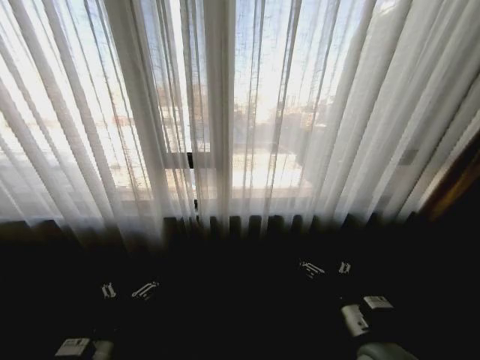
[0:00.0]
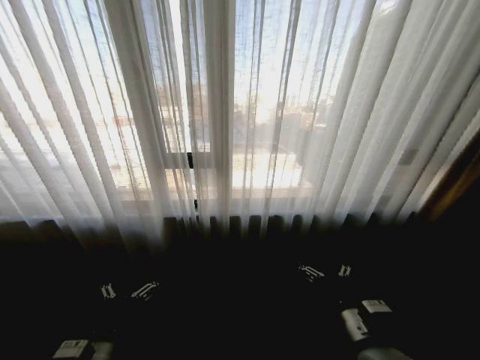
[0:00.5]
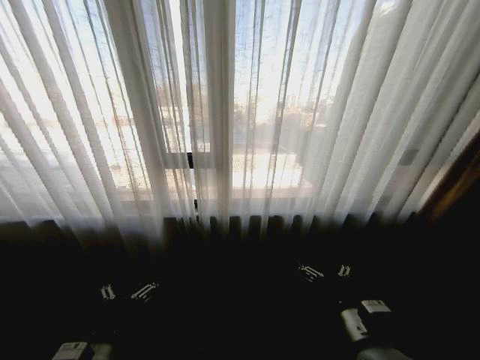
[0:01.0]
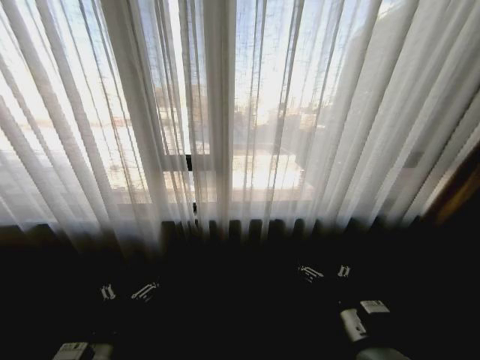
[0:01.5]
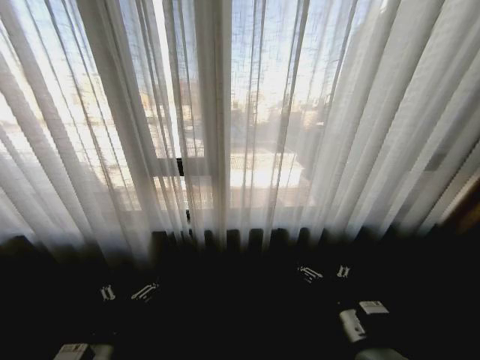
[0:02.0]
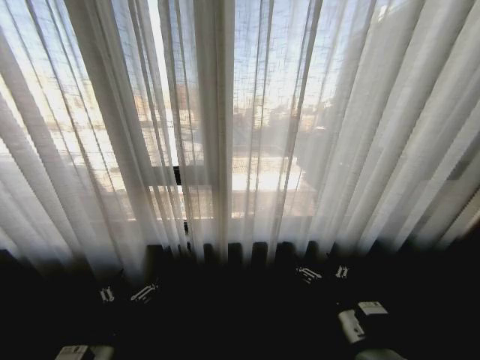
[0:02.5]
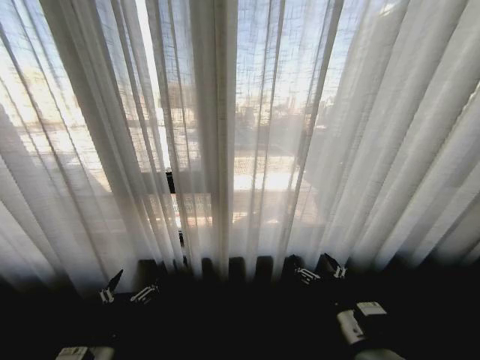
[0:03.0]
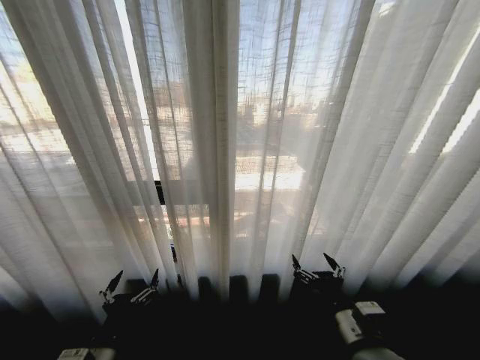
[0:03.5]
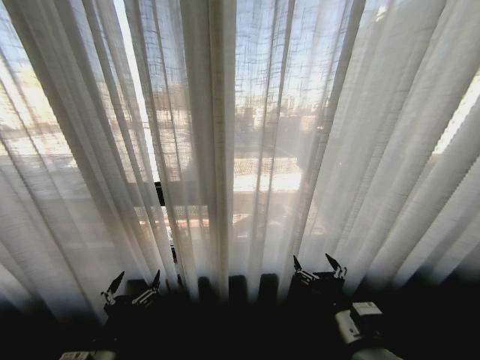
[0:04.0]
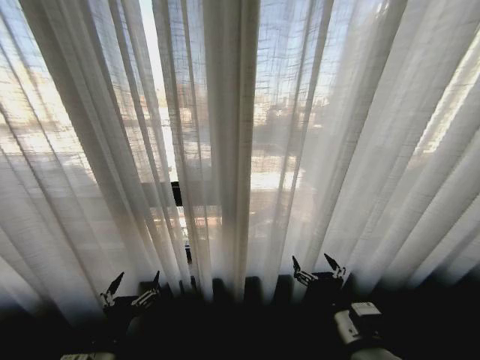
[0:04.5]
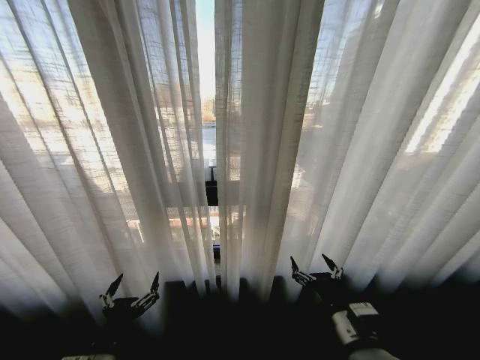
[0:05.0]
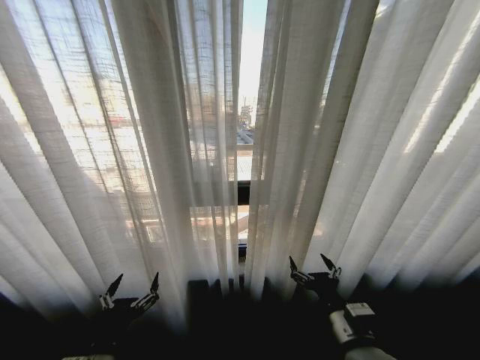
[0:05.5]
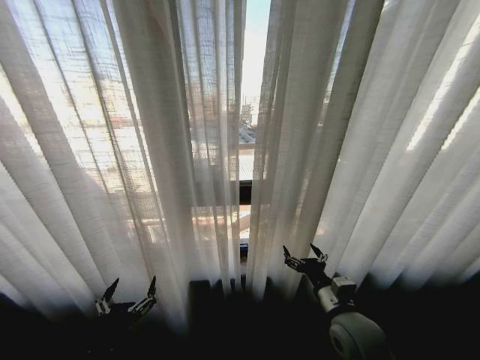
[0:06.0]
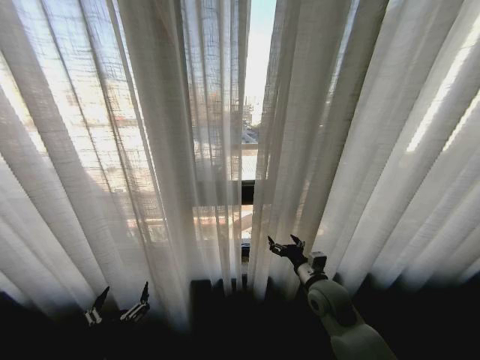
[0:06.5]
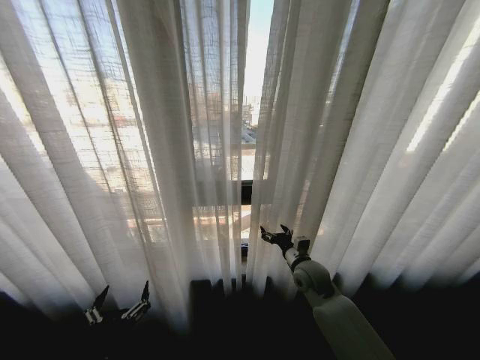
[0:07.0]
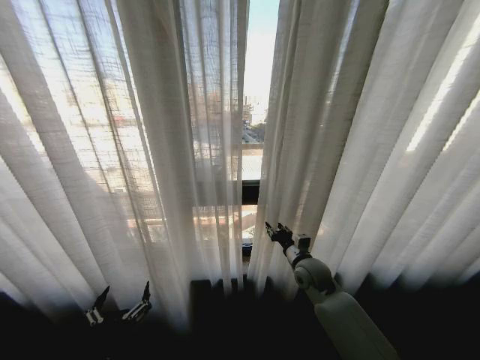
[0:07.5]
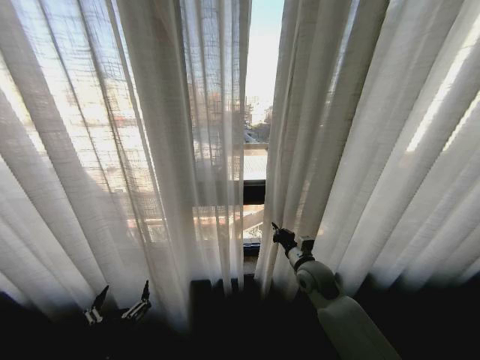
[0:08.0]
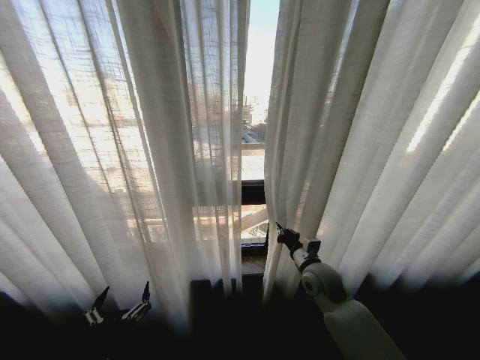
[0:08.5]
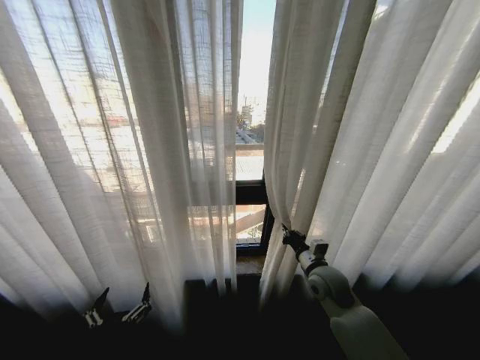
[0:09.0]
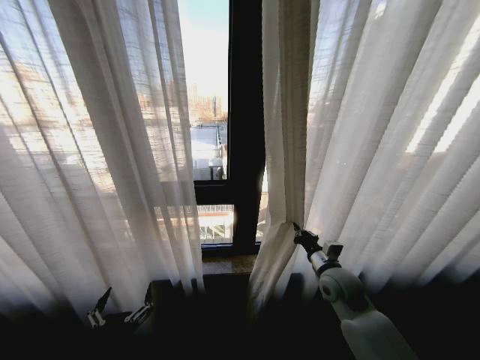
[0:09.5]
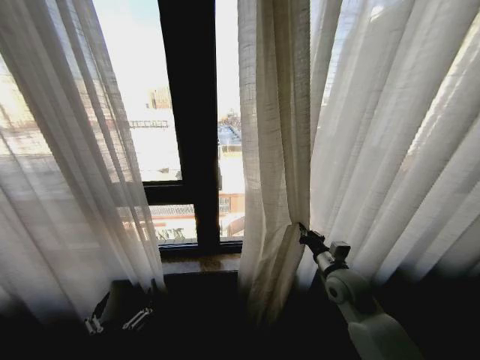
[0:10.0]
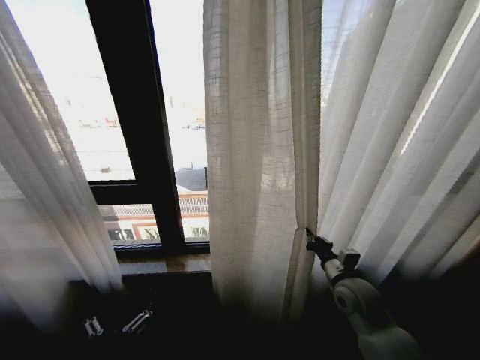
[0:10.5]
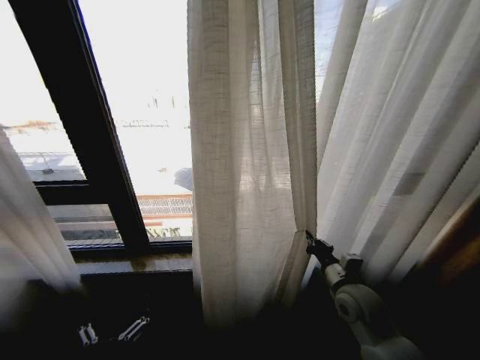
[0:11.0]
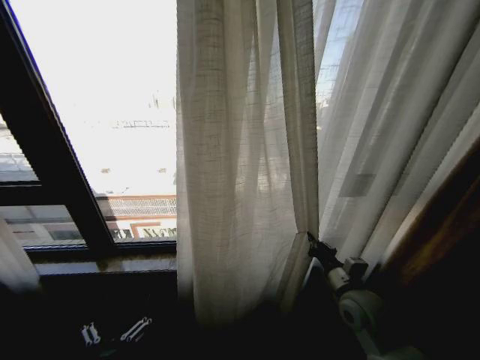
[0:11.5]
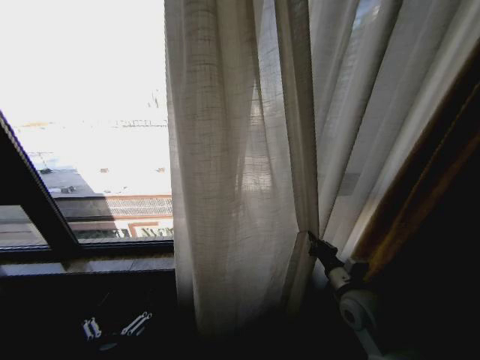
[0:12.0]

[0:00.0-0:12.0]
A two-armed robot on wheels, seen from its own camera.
Task of the whole recording: Open the curtains by pulling them apart, changing their state from closed to fully open.
0:04.0 to 0:06.0: The right gripper heads forward, covering about 5 cm.
0:06.0 to 0:08.0: The right gripper moves forward, roughly 15 cm, and closes.
0:08.0 to 0:10.0: The right gripper heads to the right, covering some 5 cm.
0:10.0 to 0:12.0: The right gripper heads backward, covering approximately 5 cm.

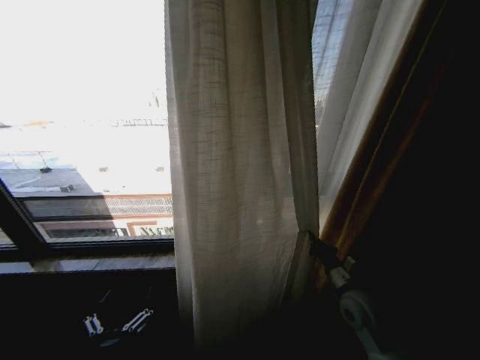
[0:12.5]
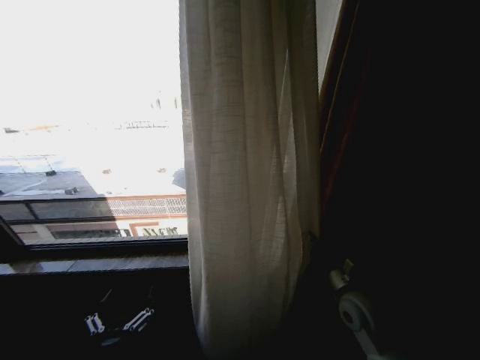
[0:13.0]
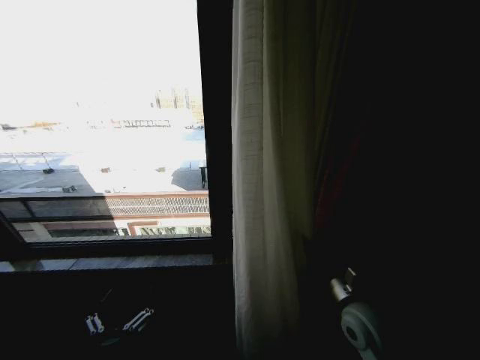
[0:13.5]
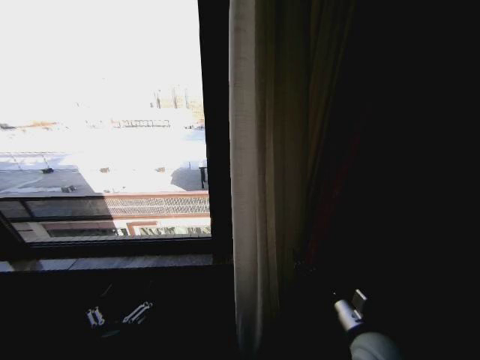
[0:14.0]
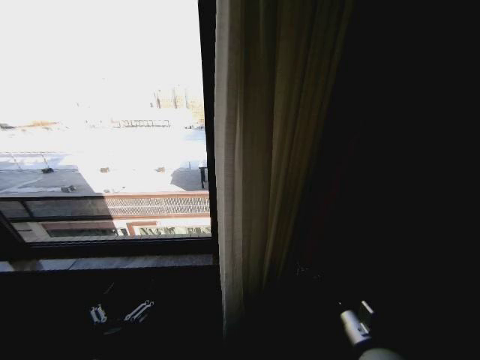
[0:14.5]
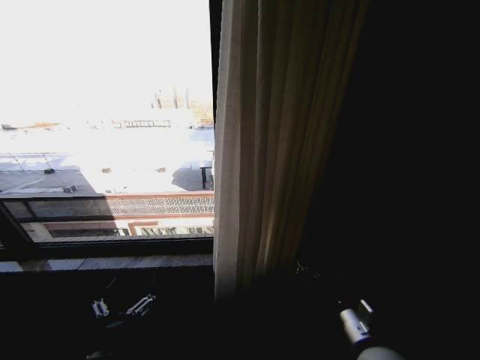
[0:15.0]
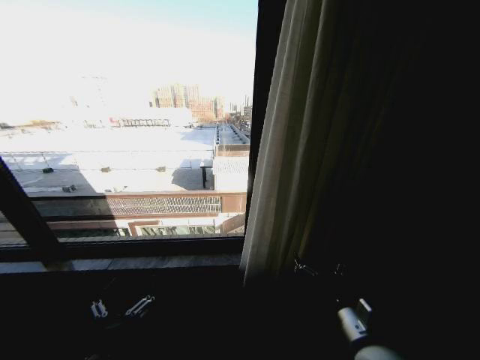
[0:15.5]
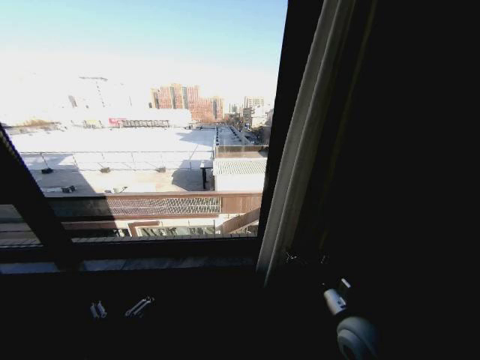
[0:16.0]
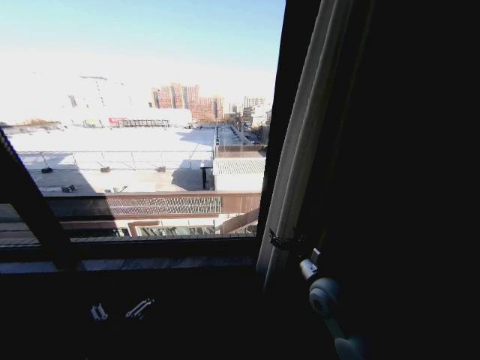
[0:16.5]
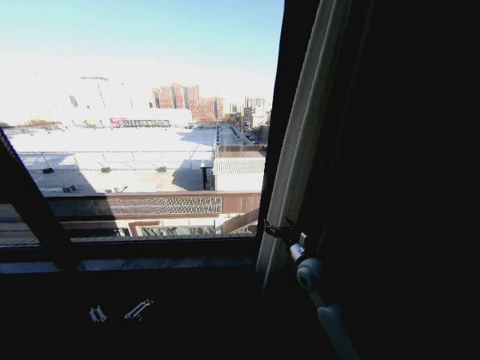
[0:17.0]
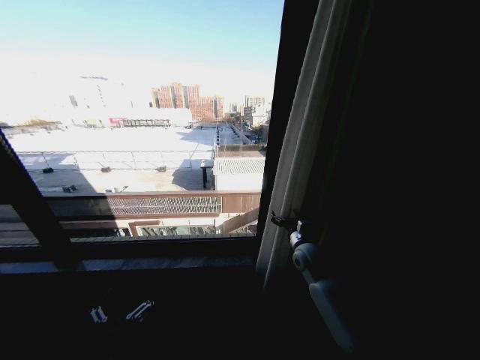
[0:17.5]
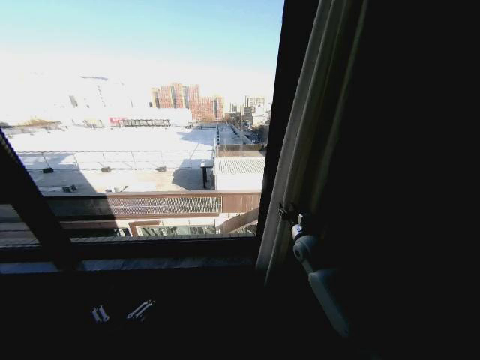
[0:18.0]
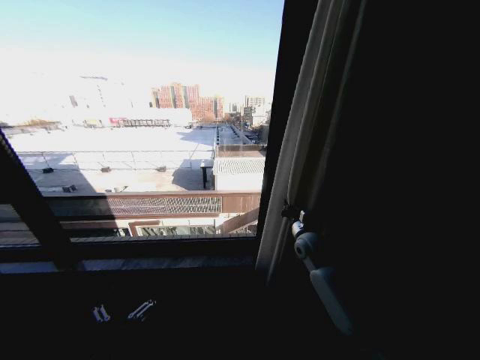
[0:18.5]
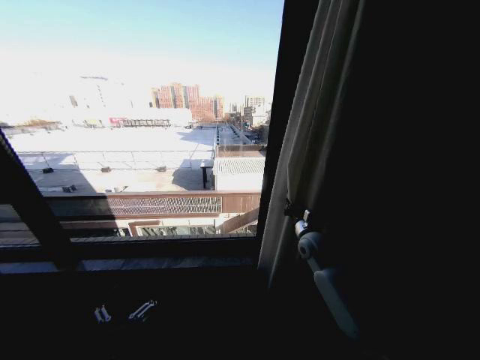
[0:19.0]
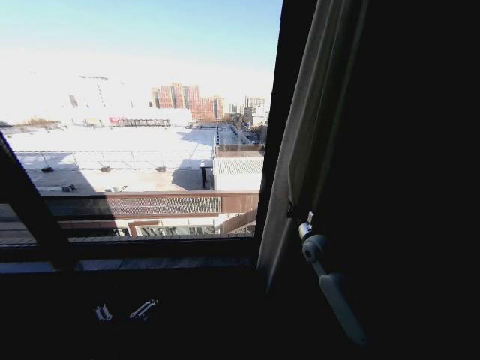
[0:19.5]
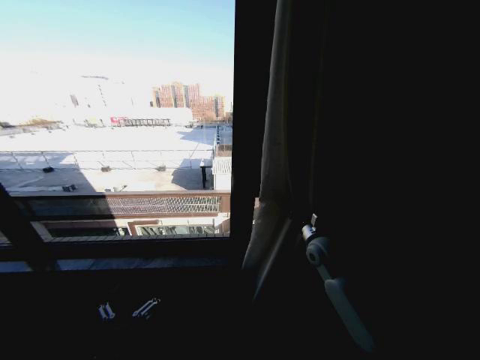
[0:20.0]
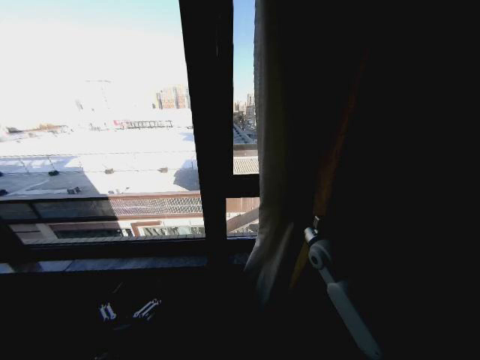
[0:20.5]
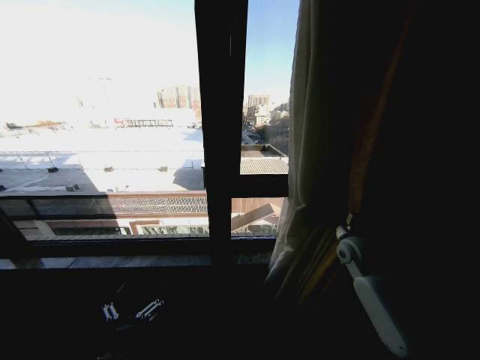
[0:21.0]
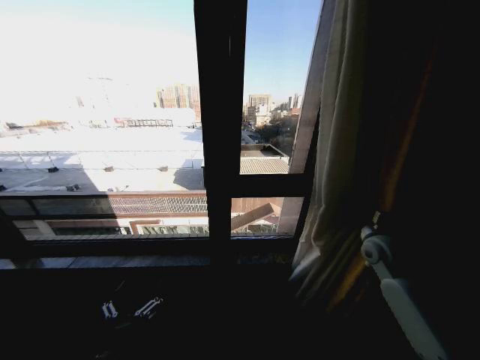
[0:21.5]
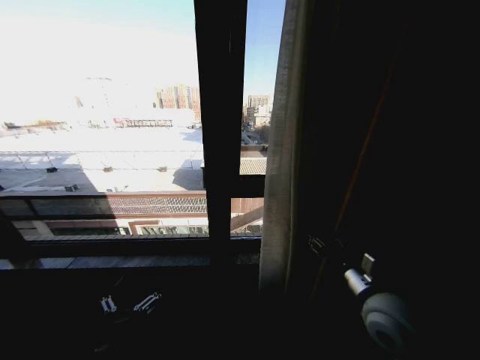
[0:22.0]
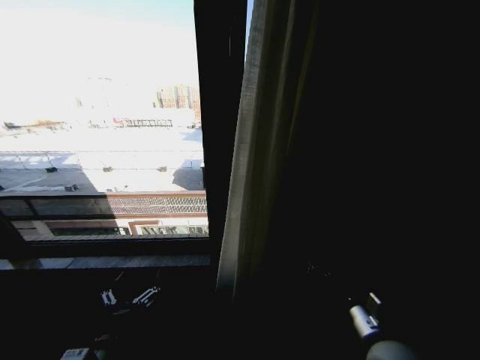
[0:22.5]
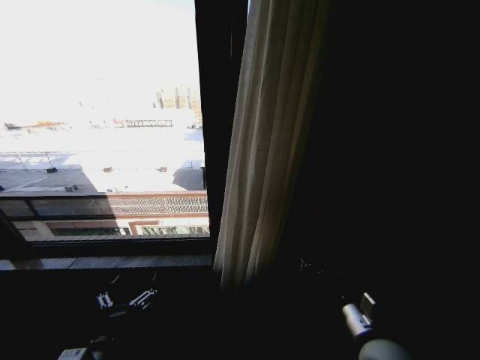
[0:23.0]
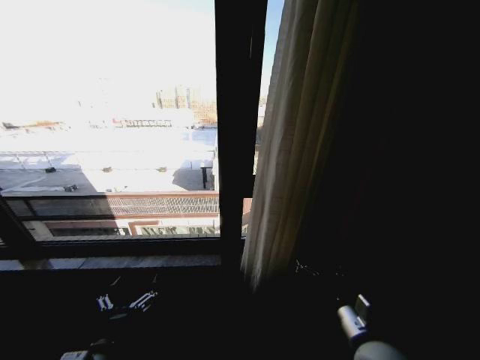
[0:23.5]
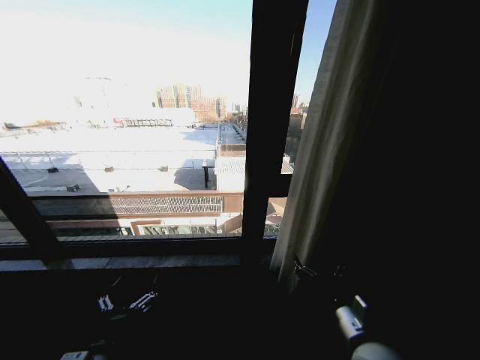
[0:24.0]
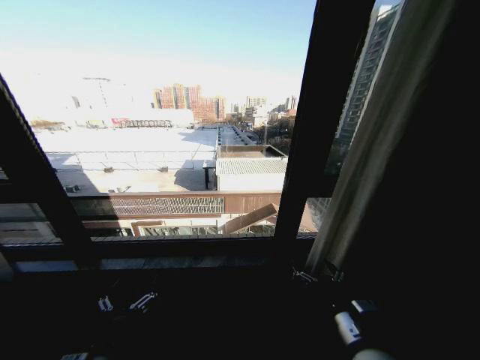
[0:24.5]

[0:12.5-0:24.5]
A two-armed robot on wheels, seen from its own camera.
Task of the whole recording: Open the curtains by pulling them apart, changing their state from closed to fully open.
0:12.5 to 0:14.5: The right gripper heads backward and to the left, covering approximately 15 cm, and opens.
0:14.5 to 0:16.5: The right gripper moves forward, roughly 15 cm.
0:16.5 to 0:18.5: The right gripper moves forward, approximately 15 cm, and closes.
0:18.5 to 0:20.5: The right gripper moves roughly 5 cm.
0:20.5 to 0:22.5: The right gripper shifts about 25 cm backward, and opens.

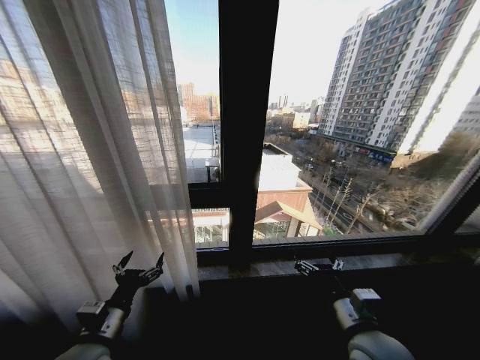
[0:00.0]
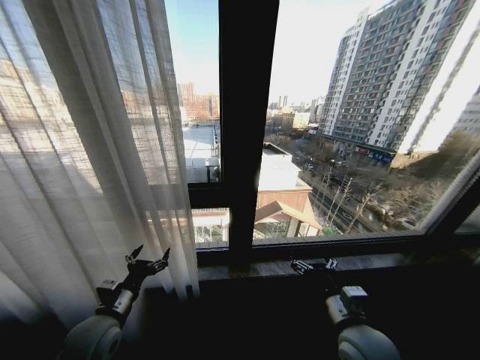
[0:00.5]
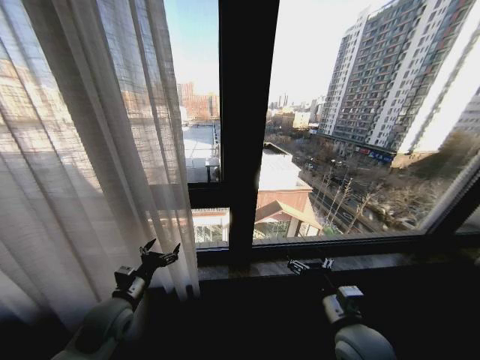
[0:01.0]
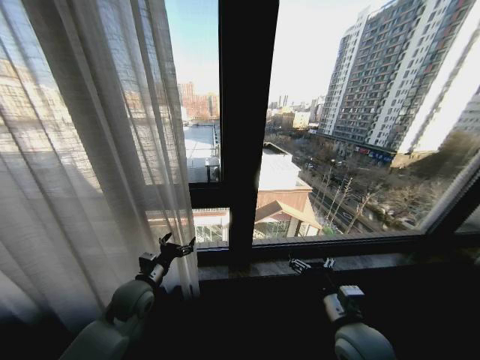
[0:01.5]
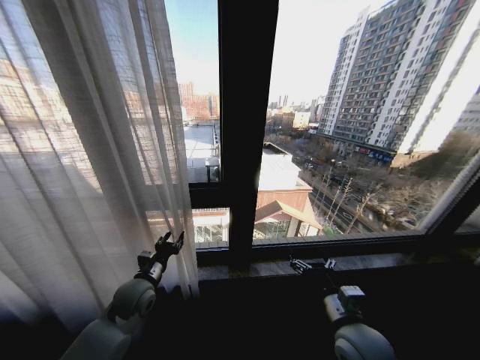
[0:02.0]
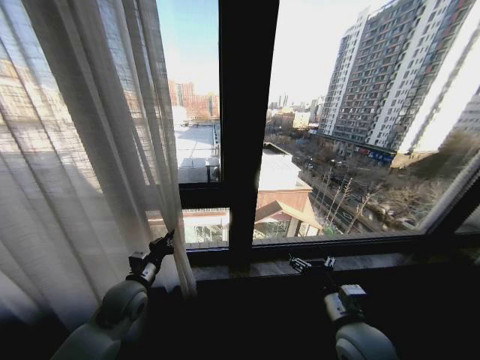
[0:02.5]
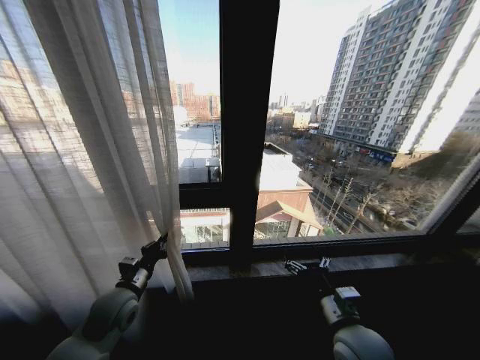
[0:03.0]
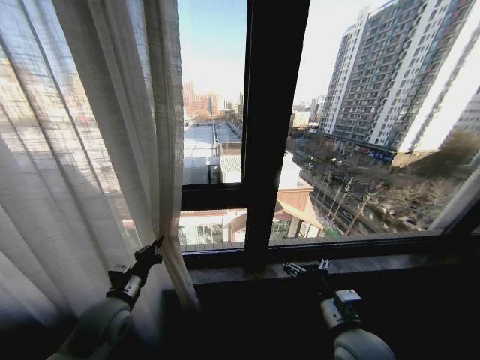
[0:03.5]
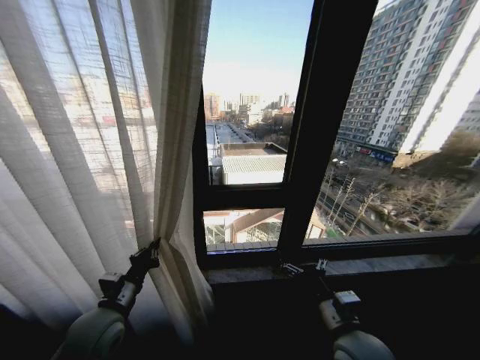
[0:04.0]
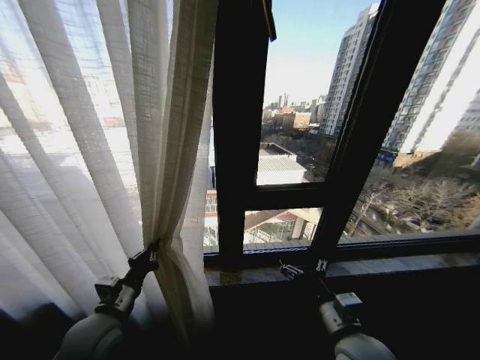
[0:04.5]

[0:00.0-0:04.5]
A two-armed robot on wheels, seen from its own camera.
Task of the whole recording: Open the curtains by pulling them apart, changing their state from closed to fully open.
0:00.0 to 0:02.0: The left gripper is displaced forward by about 15 cm, and closes.
0:02.0 to 0:04.5: The left gripper is displaced backward by approximately 10 cm, and closes its fingers.
